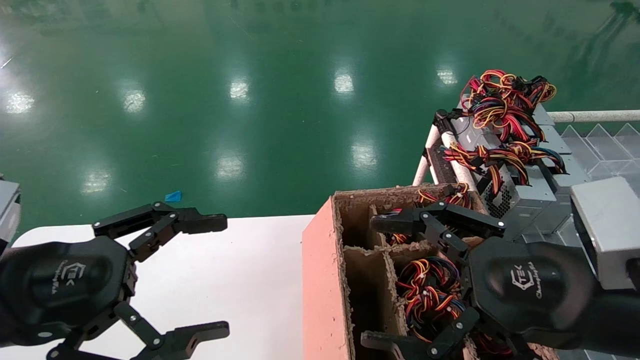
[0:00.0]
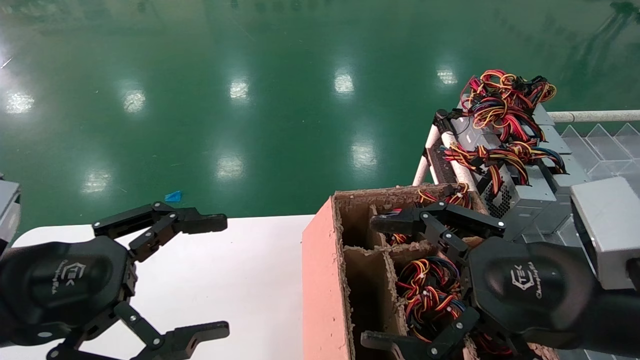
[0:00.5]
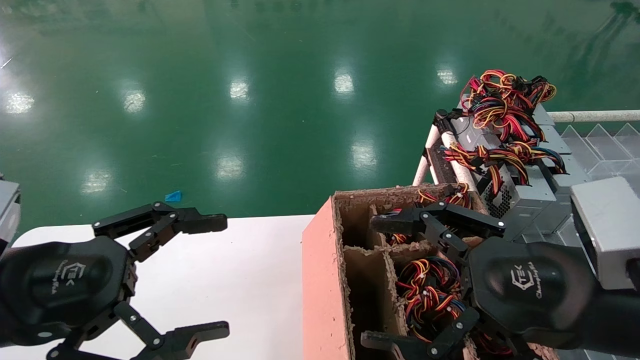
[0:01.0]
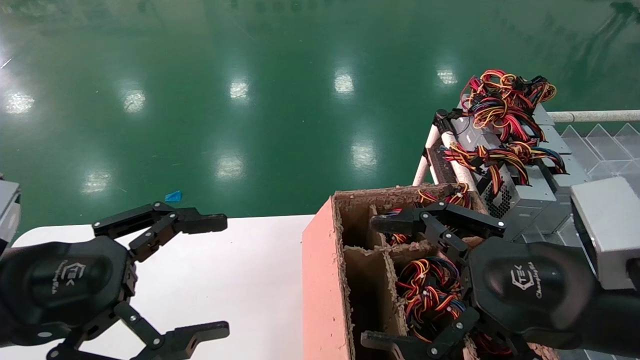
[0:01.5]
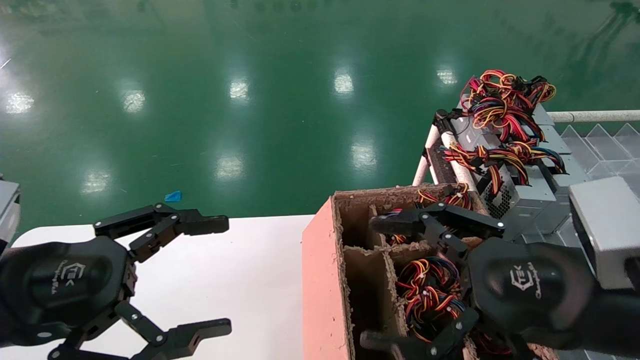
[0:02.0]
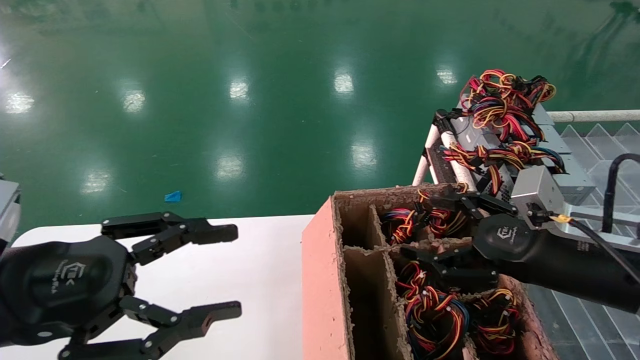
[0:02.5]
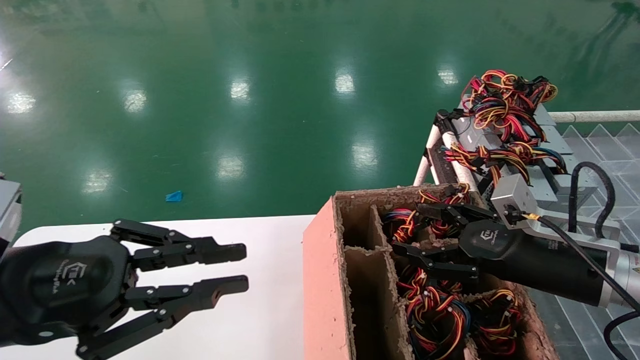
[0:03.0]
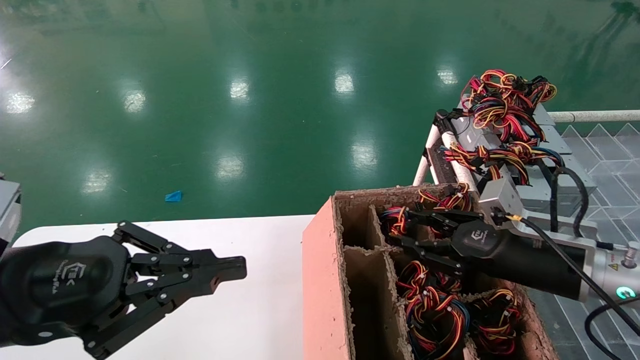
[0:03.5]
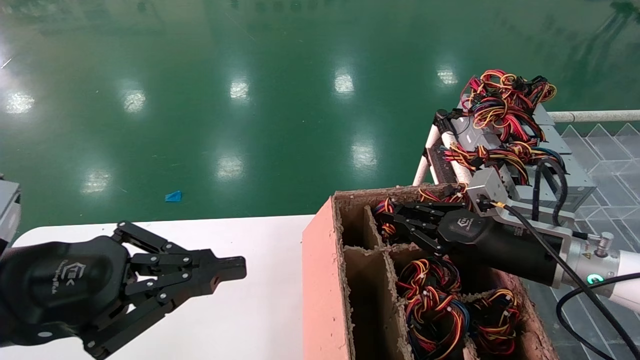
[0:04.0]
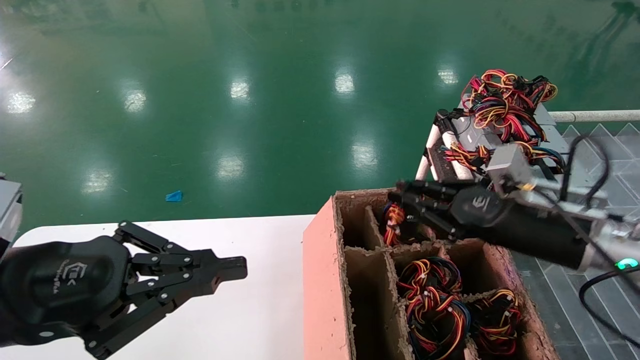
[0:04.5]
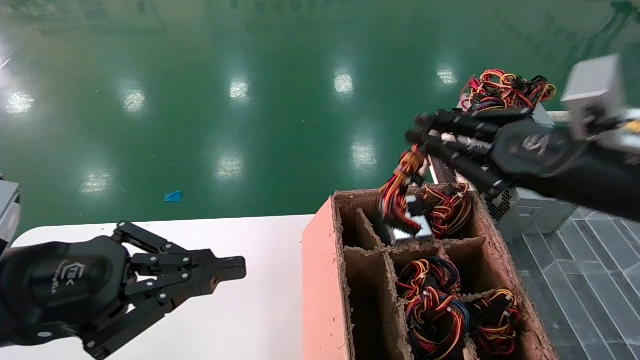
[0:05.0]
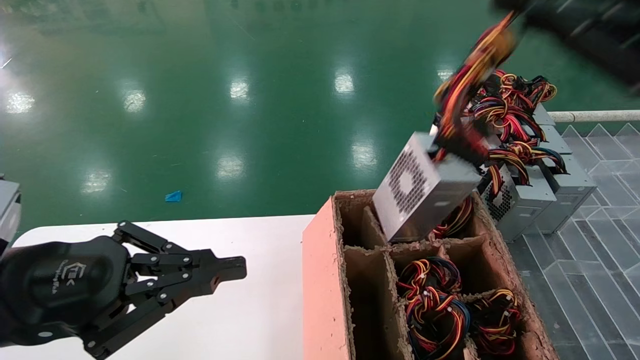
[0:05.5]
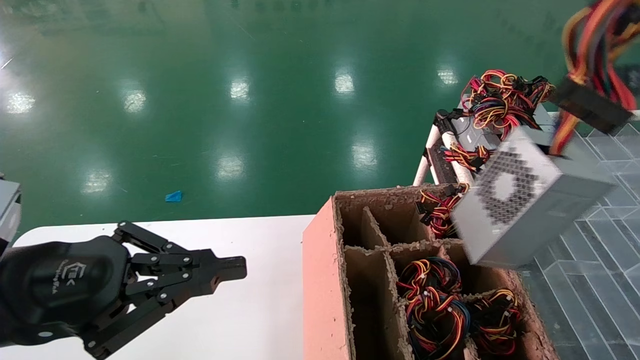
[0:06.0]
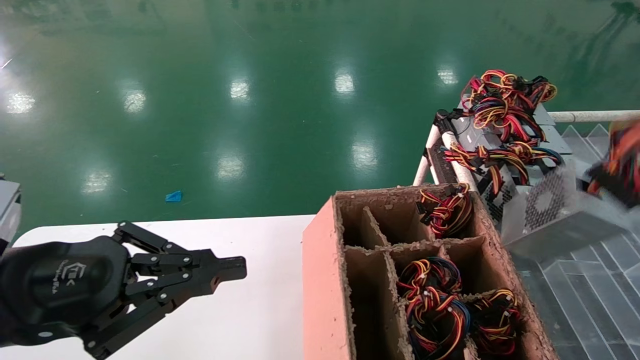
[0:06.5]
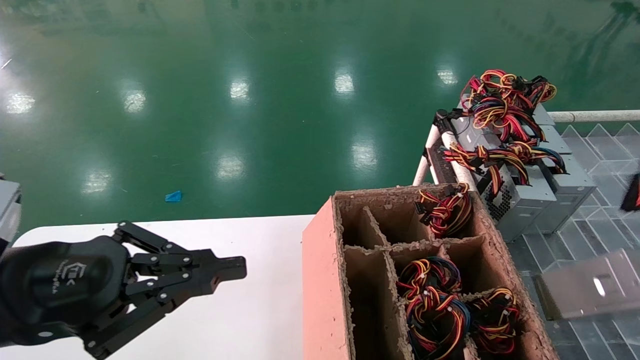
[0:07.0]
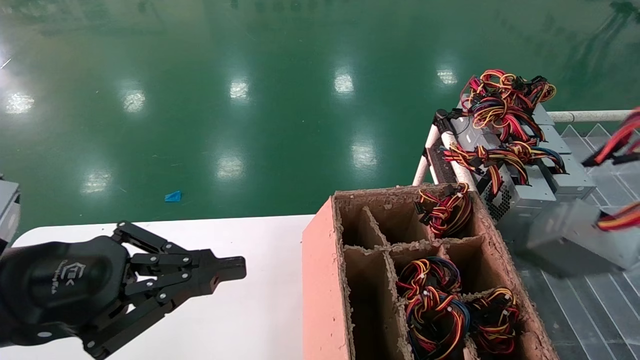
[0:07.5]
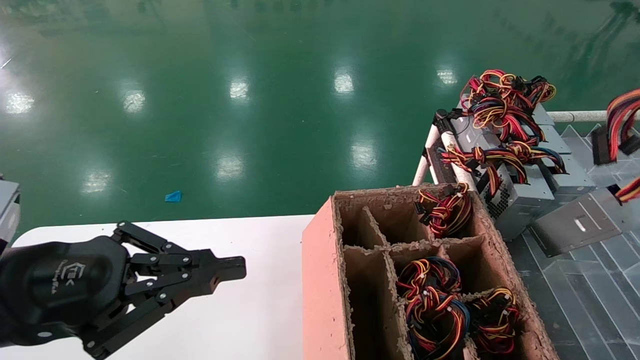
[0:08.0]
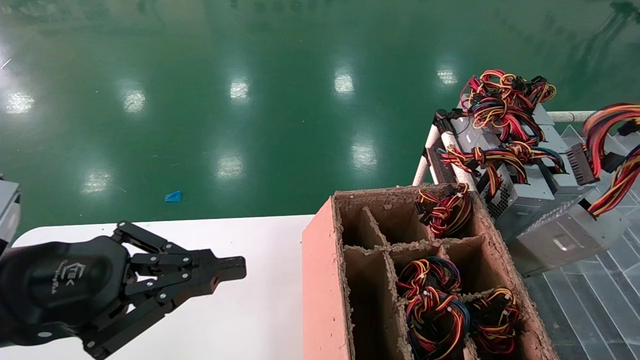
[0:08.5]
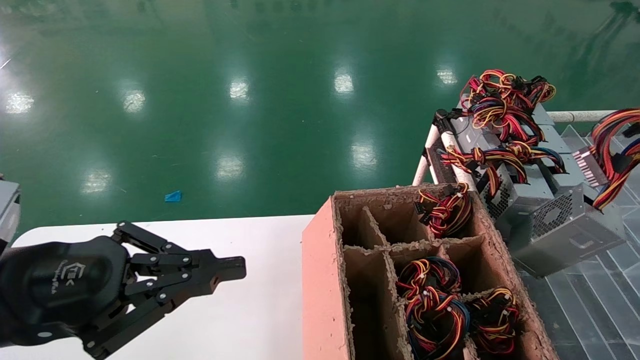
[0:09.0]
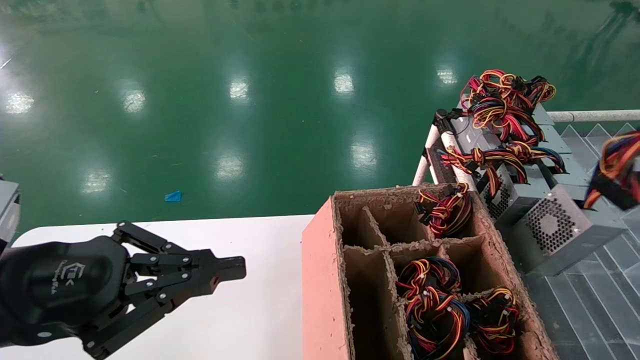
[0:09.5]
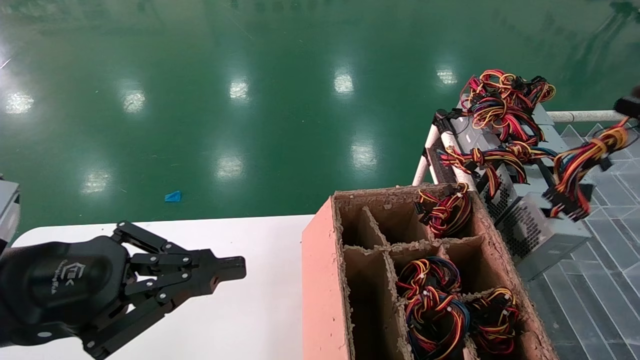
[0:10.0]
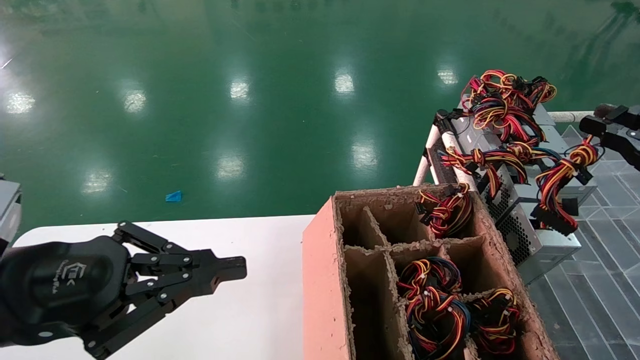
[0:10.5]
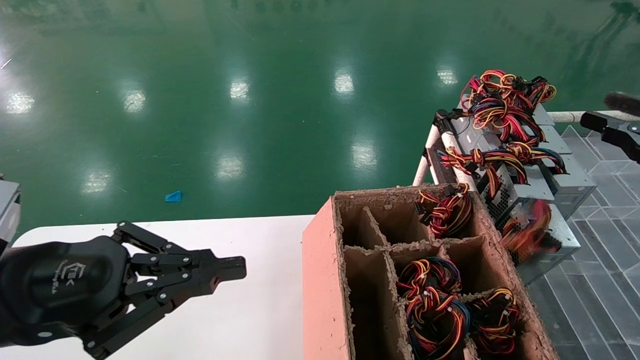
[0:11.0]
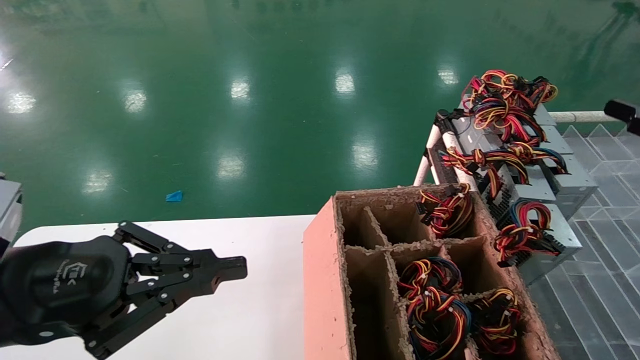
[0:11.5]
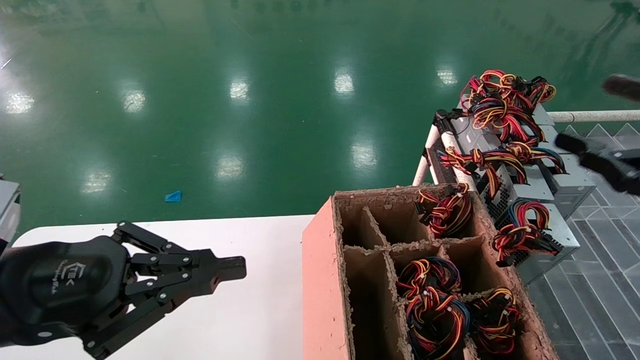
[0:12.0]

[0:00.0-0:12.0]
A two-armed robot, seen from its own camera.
Step, 0:02.5 to 0:04.5: Grab the main unit power supply from the containment box.
Step, 0:05.0 to 0:11.0: Place the main unit power supply in the designated area.
0:00.0 to 0:02.0: The grippers move only a little.
0:02.0 to 0:04.0: The left gripper closes up; the right gripper moves forward and downward, roughly 15 cm, and closes up.
0:04.0 to 0:06.0: The right gripper heads backward and upward, covering roughly 40 cm.
0:06.0 to 0:08.0: The right gripper is displaced to the right and downward by about 15 cm.
0:08.0 to 0:10.0: The right gripper ends up roughly 10 cm from where it was.
0:10.0 to 0:12.0: The right gripper opens up.

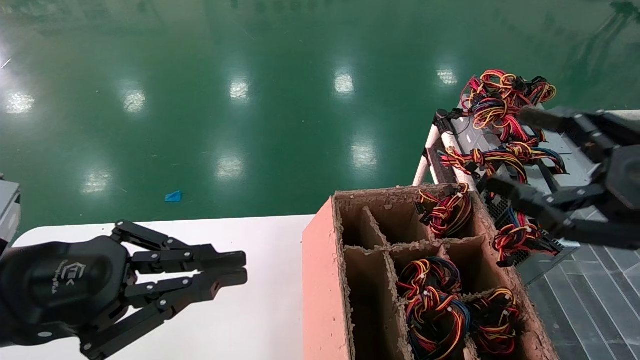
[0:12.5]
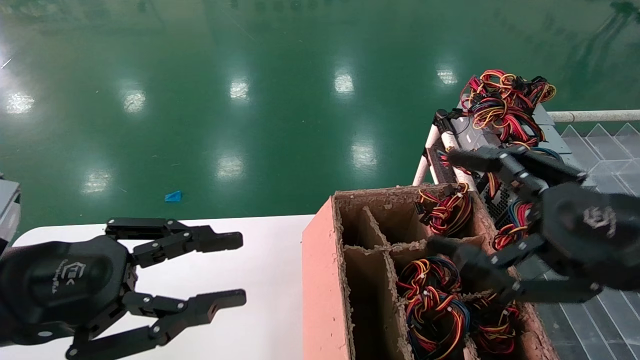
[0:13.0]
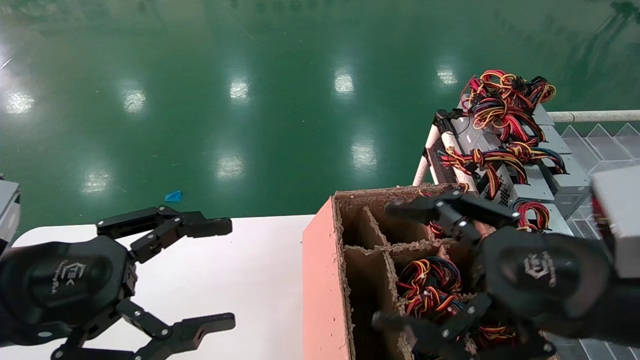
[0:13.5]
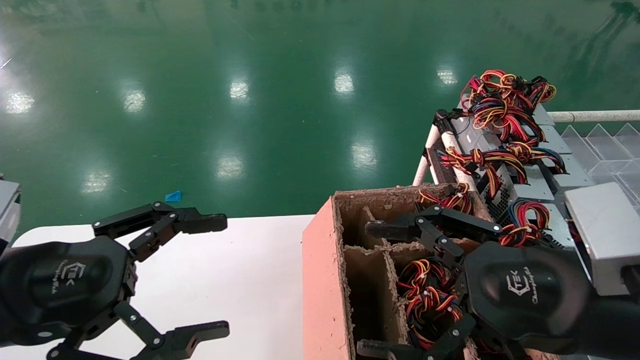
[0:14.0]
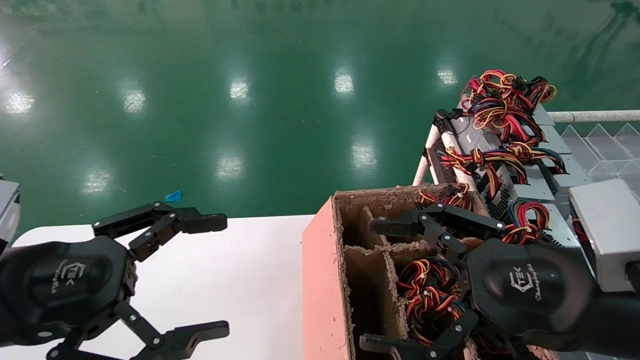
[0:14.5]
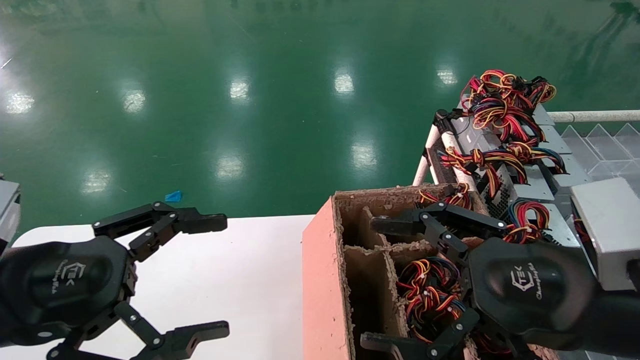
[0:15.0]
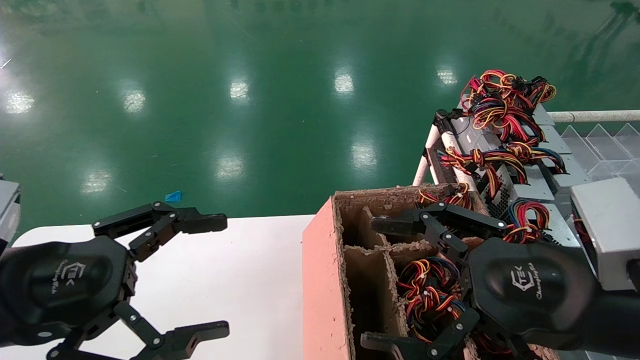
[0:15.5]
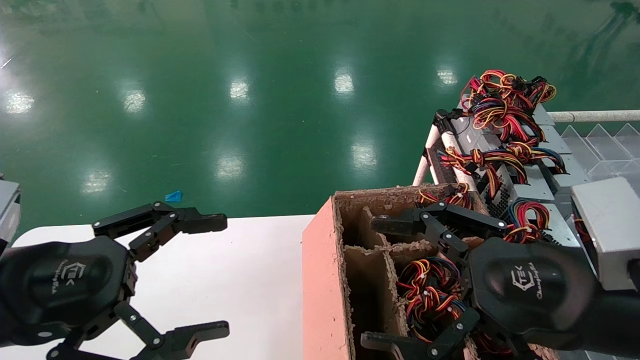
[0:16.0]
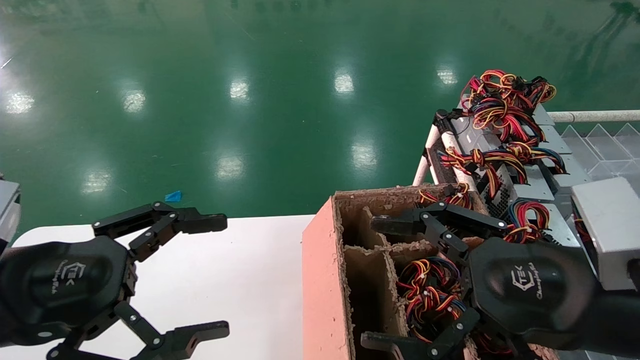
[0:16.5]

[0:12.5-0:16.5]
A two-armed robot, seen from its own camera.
0:12.5 to 0:14.5: The left gripper opens up. The right gripper is displaced to the left by some 10 cm.
0:14.5 to 0:16.5: Neither gripper changes place.
